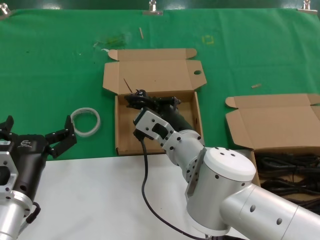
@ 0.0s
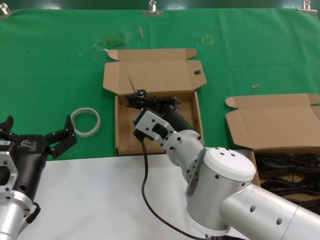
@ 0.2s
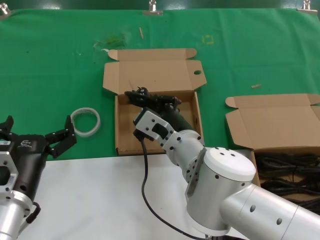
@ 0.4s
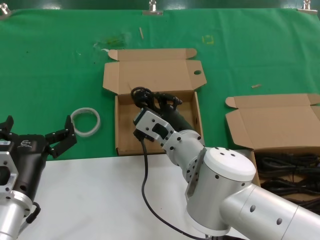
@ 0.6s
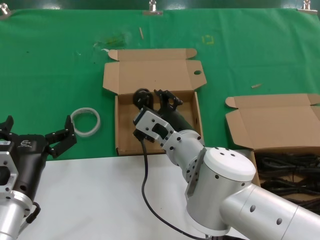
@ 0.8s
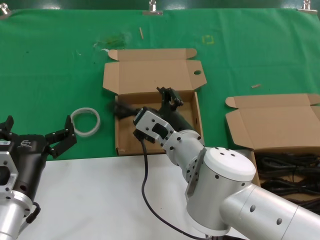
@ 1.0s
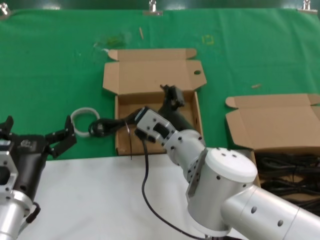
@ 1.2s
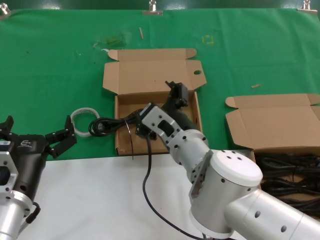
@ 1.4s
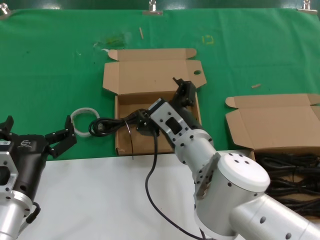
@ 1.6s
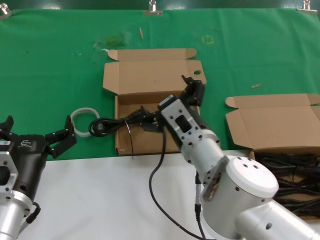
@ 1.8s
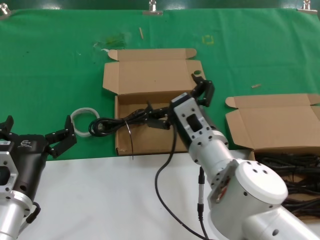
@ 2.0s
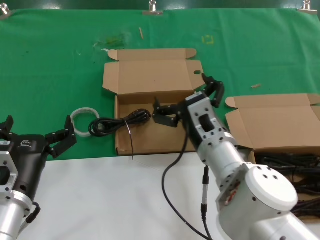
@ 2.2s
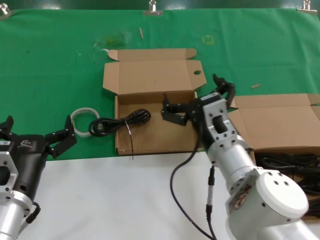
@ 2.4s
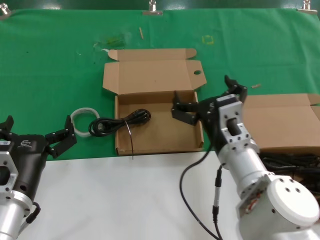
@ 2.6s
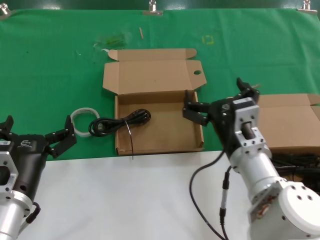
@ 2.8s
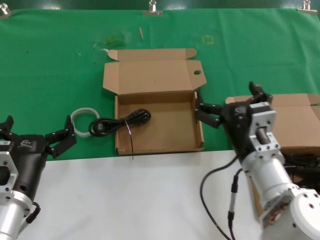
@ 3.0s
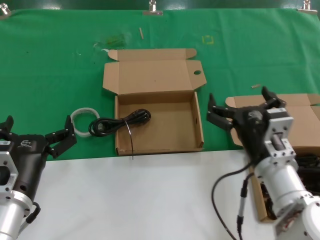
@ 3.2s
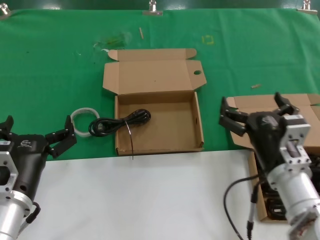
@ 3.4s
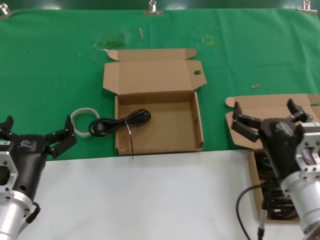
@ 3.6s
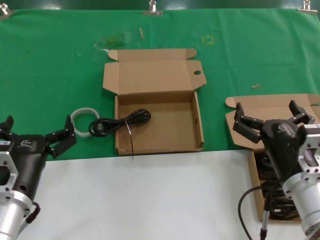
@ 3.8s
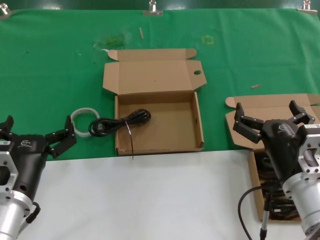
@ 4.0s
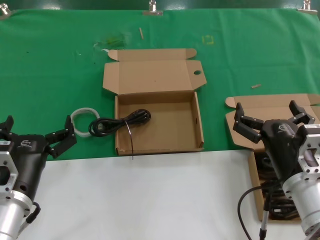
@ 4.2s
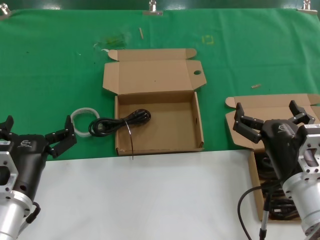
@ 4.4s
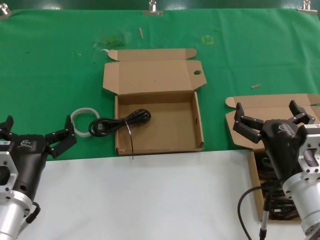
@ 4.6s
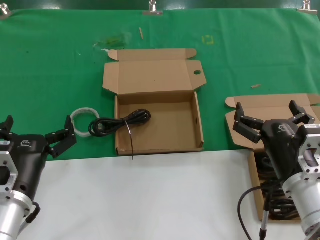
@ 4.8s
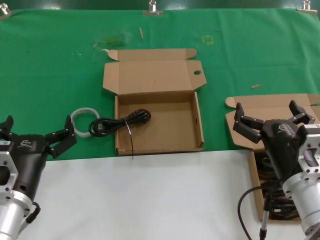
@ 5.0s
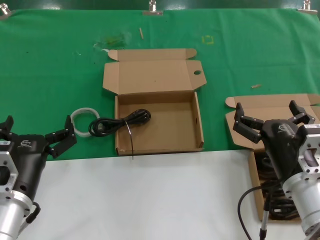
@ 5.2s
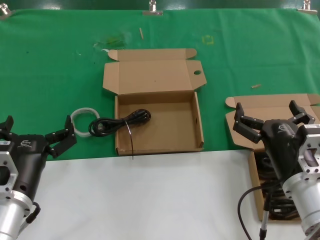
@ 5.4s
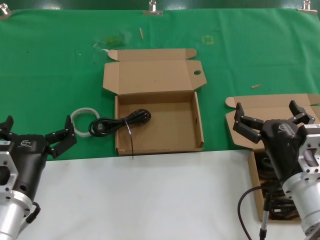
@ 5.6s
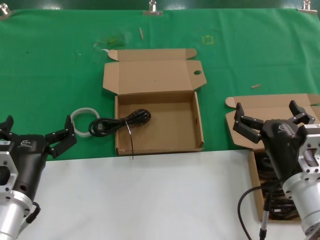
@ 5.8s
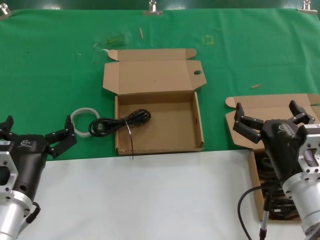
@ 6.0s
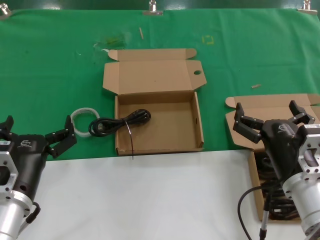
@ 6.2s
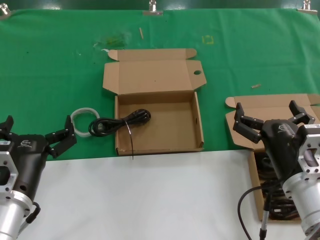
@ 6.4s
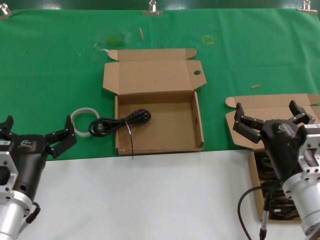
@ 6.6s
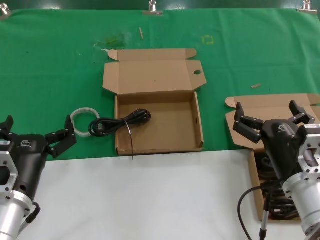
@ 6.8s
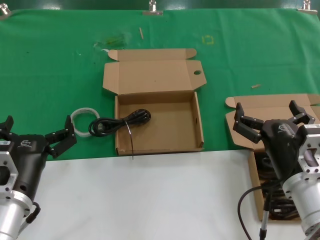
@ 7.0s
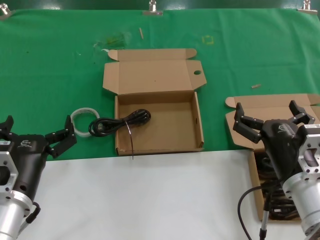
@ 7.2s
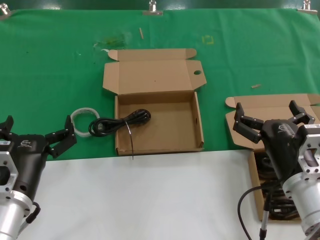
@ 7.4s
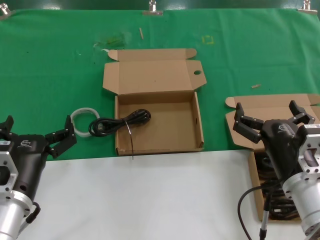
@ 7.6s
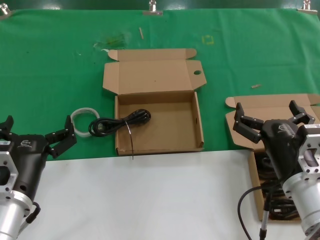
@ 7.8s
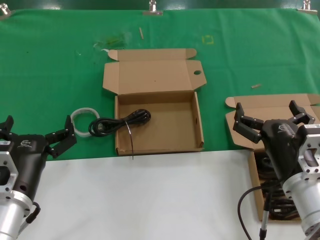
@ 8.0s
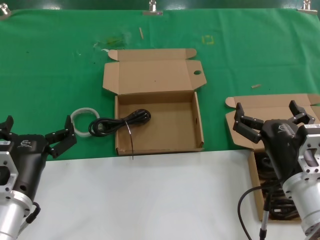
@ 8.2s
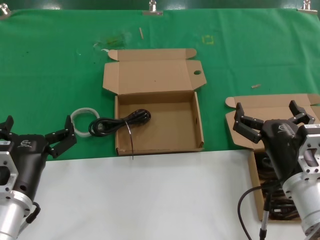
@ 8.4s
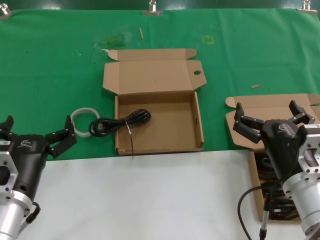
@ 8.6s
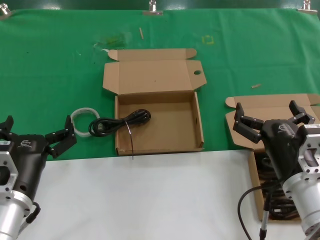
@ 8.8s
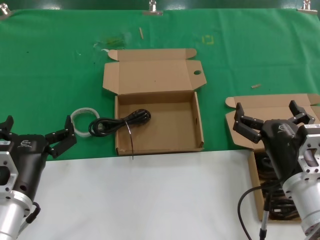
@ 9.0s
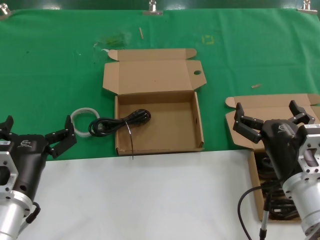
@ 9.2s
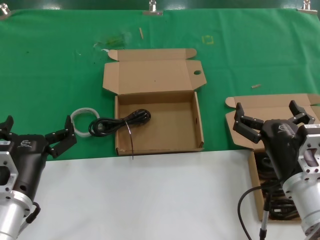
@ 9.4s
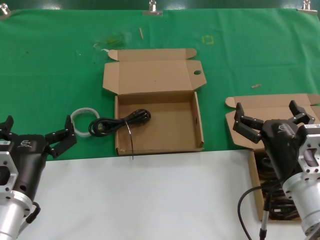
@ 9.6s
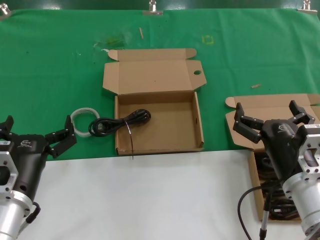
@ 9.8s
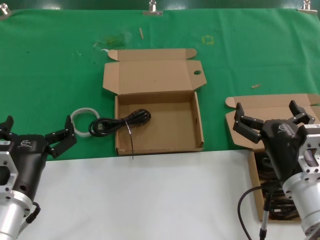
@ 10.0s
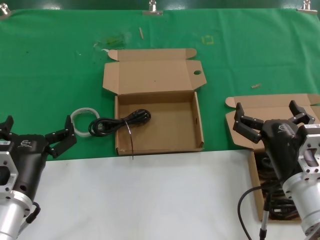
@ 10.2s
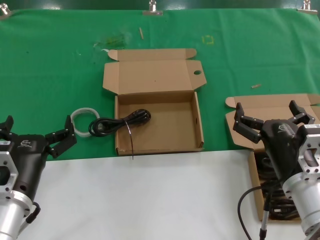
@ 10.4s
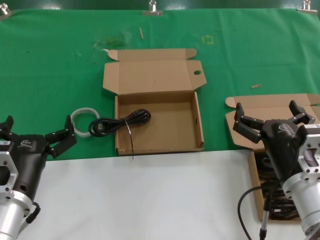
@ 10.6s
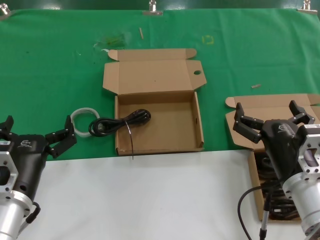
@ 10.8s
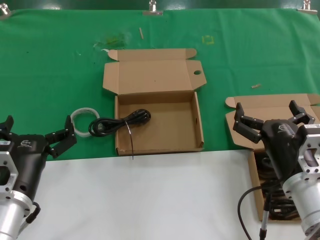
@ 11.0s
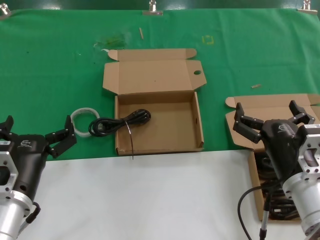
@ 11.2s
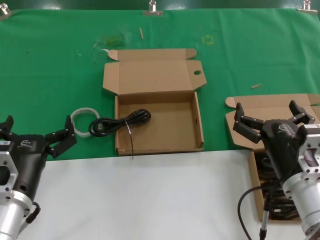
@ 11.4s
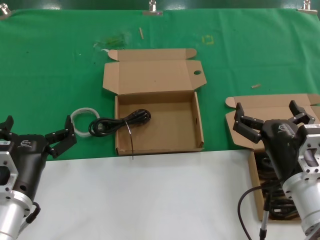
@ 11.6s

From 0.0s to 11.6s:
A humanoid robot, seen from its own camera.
Task of the whole recording: take the parts from the box containing them and put them into an empty box.
From 0.0s to 1.4s: The hands stay close to where they were, moving slightly.
From 1.4s to 2.8s: The right hand shifts some 10 cm to the right.
From 2.8s to 4.4s: The right hand is displaced to the right by some 10 cm.
From 4.4s to 11.6s: Both hands stay put.

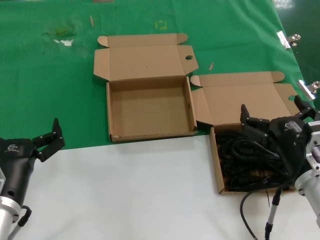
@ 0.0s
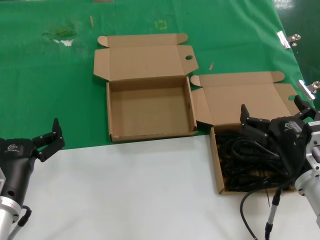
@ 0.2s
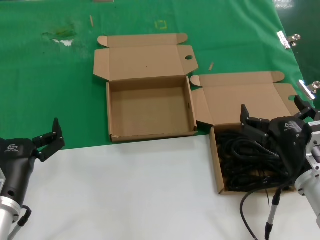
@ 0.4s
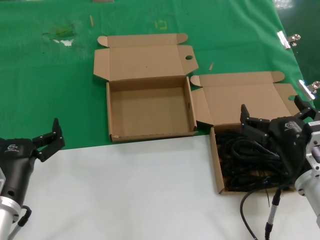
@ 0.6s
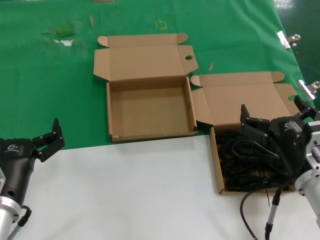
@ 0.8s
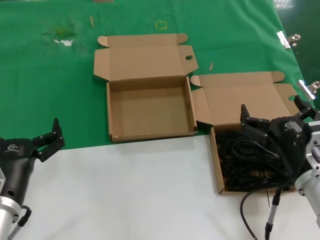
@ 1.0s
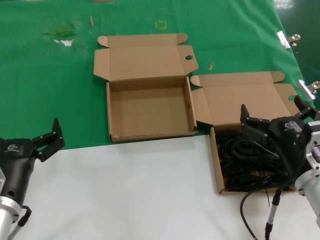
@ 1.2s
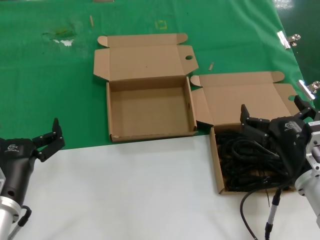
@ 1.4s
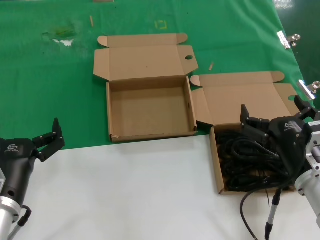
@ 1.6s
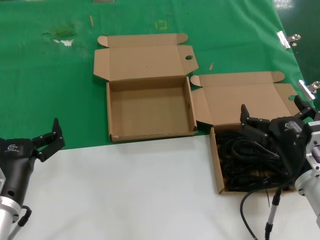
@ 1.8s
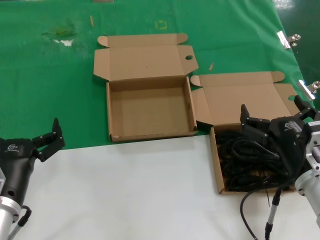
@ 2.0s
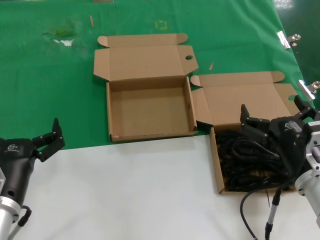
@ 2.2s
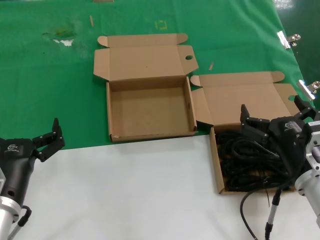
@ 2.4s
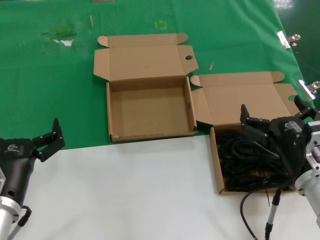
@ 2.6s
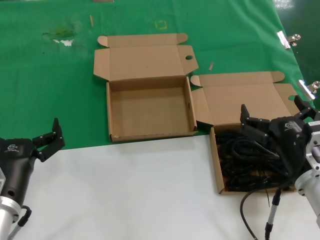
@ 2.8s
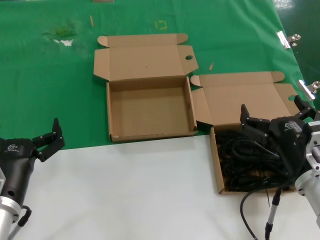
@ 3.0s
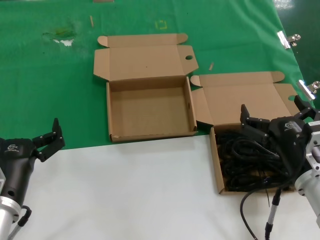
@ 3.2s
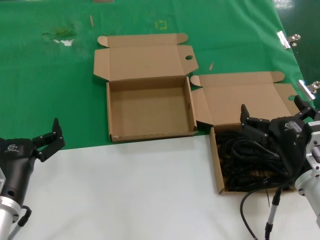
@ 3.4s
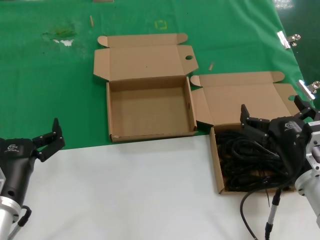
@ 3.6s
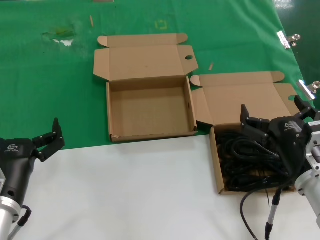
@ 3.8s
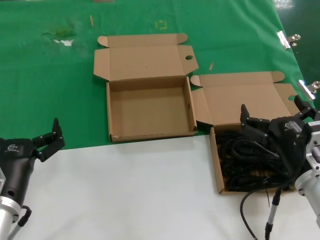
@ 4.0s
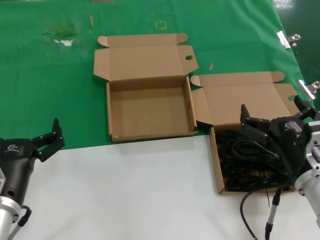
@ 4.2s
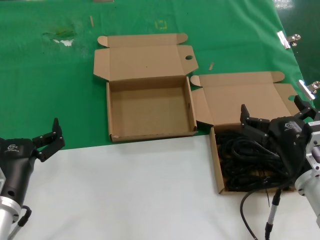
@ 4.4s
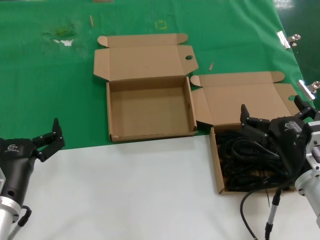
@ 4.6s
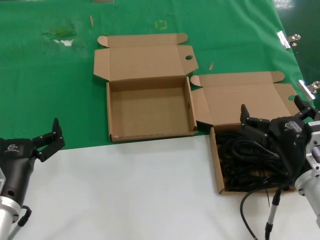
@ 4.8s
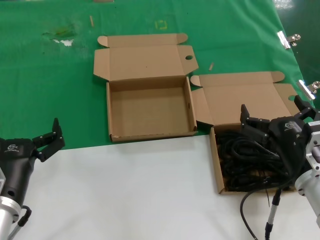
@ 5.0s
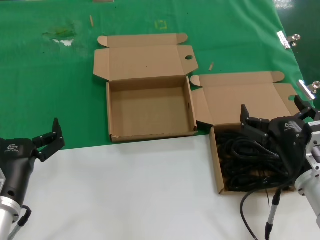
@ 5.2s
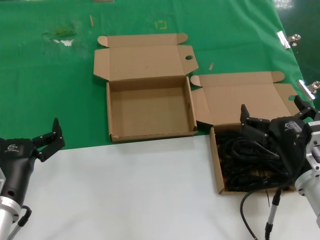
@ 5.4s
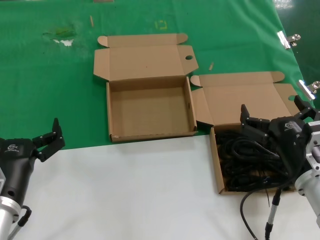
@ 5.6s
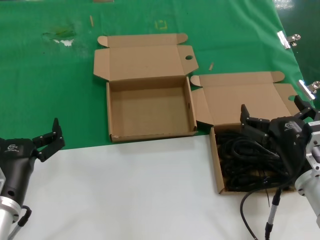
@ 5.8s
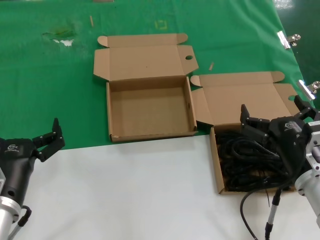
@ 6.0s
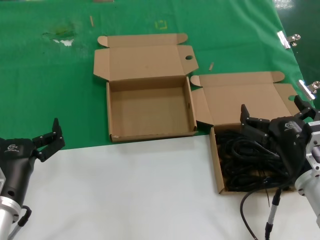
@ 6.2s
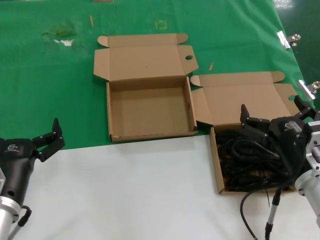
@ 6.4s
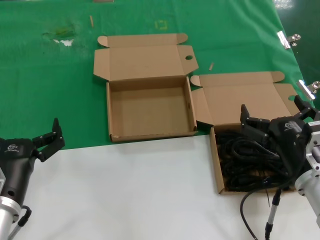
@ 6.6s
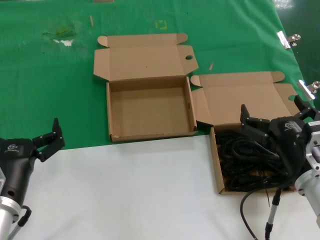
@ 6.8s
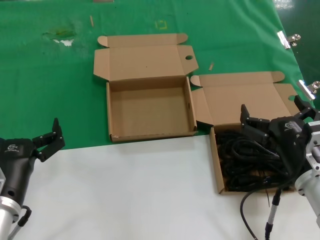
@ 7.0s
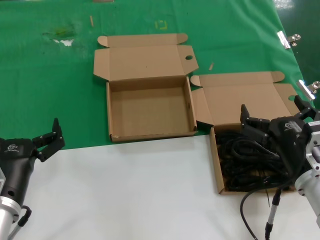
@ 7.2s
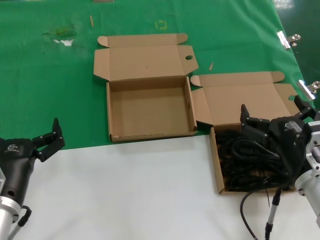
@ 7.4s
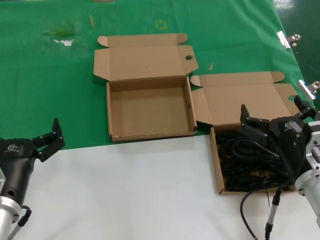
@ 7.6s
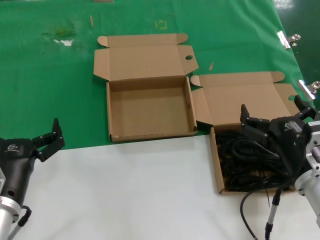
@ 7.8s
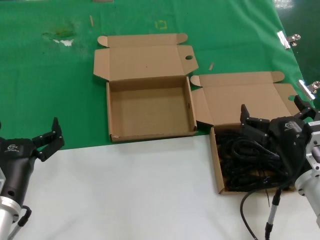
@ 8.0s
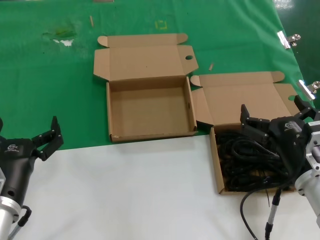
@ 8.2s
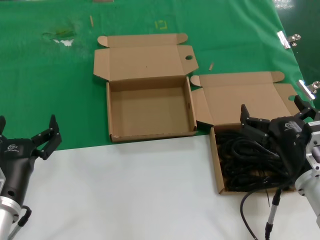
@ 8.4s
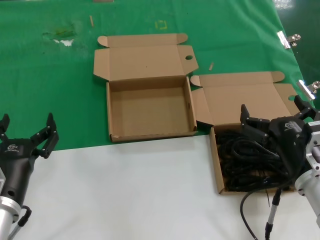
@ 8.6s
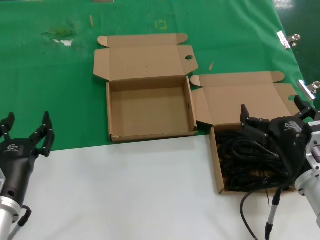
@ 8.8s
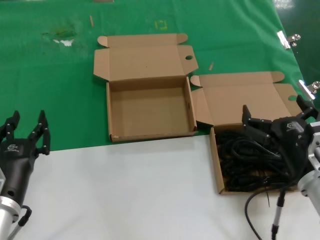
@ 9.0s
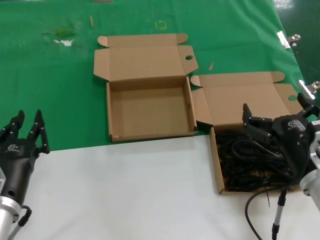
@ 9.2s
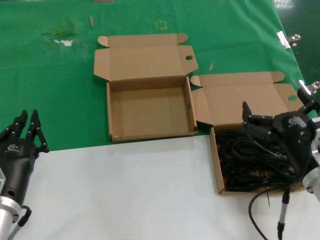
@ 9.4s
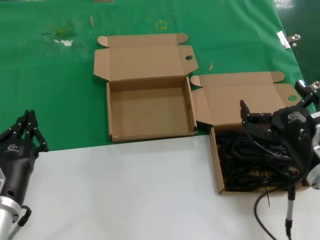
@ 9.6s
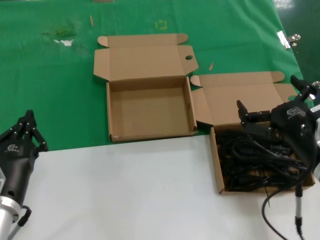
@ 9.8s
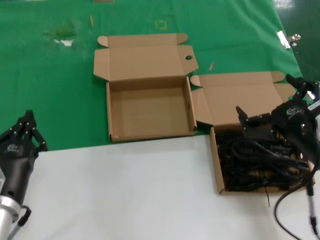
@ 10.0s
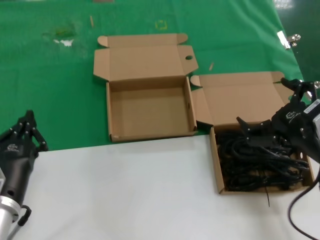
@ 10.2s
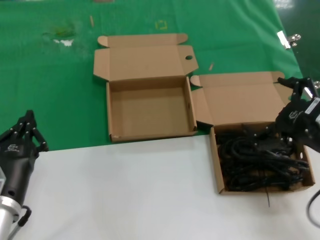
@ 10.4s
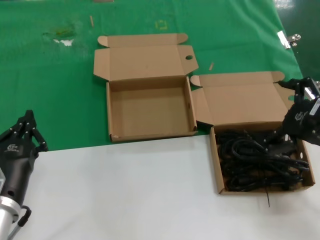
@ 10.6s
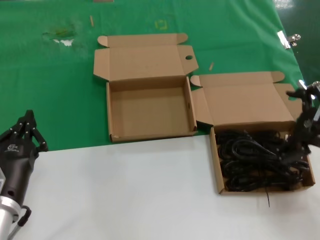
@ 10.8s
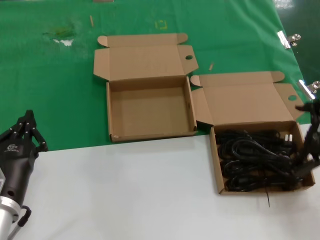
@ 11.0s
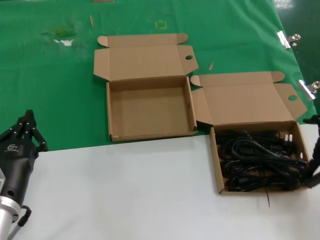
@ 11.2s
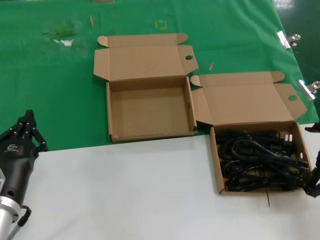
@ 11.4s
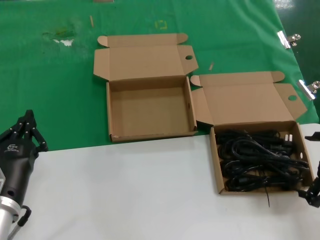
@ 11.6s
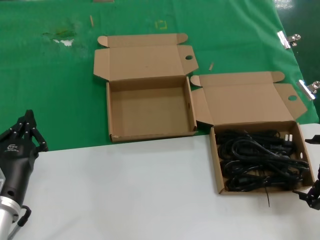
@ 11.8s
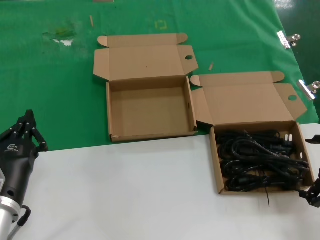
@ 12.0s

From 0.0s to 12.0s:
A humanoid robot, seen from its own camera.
Task of the whole recording: take the parts from the box containing them and put them into an empty box.
From 0.0s to 9.0s: The two hands keep their place.
From 9.0s to 10.4s: The right hand is displaced upward and to the right by some 10 cm.
From 10.4s to 12.0s: The right hand is displaced to the right by approximately 10 cm.
